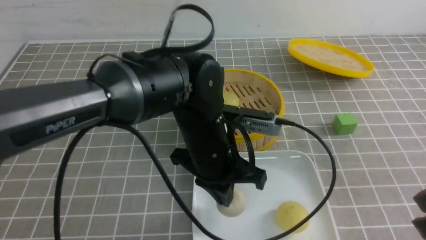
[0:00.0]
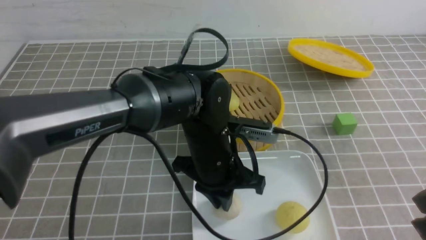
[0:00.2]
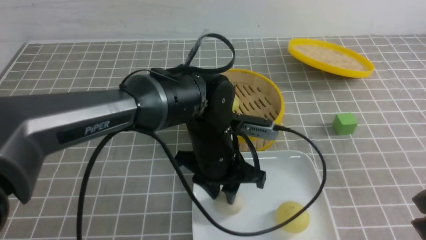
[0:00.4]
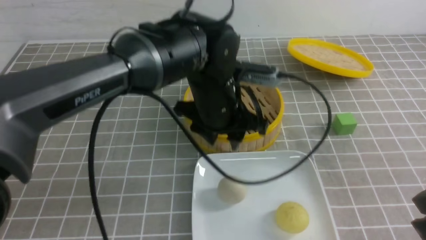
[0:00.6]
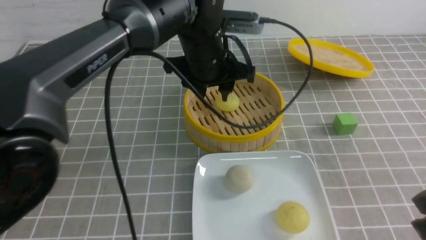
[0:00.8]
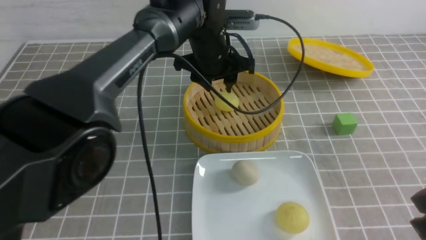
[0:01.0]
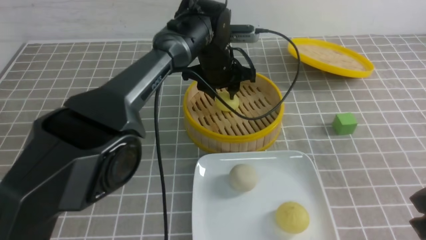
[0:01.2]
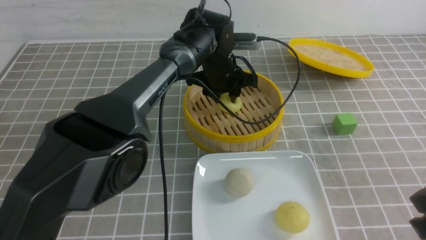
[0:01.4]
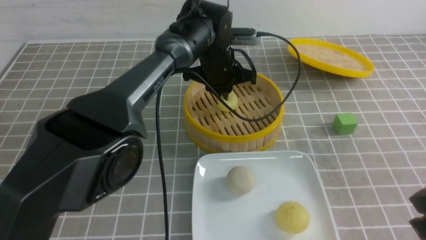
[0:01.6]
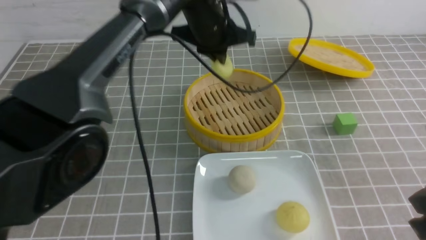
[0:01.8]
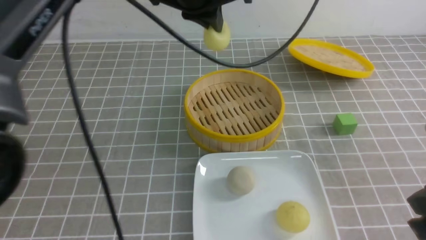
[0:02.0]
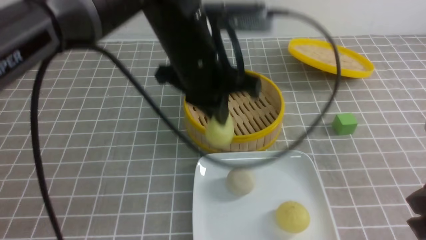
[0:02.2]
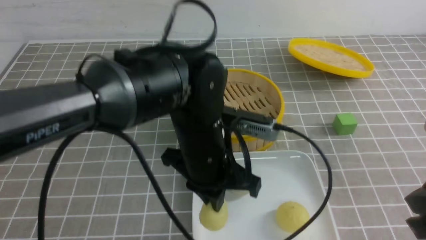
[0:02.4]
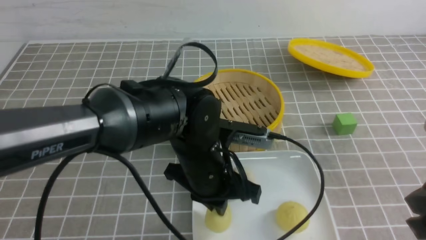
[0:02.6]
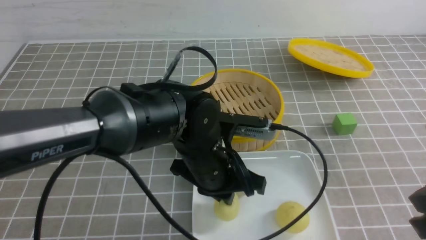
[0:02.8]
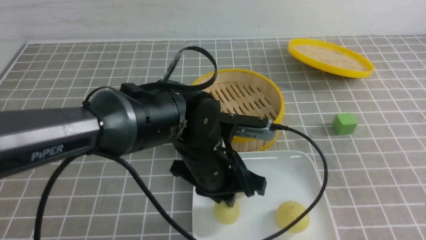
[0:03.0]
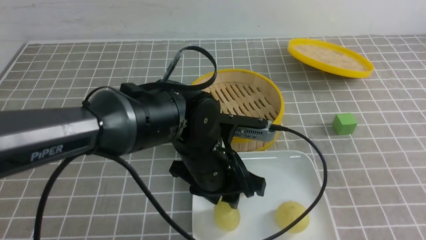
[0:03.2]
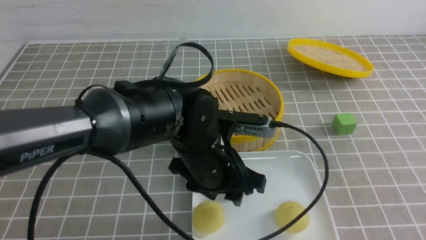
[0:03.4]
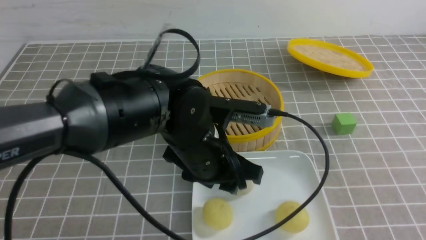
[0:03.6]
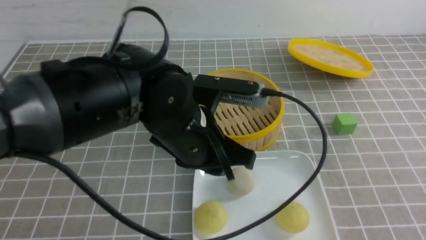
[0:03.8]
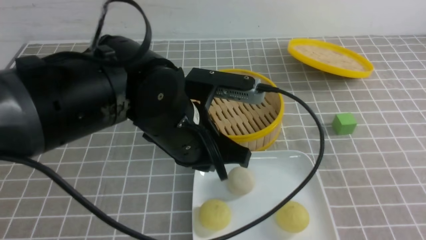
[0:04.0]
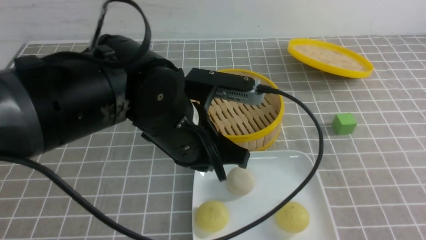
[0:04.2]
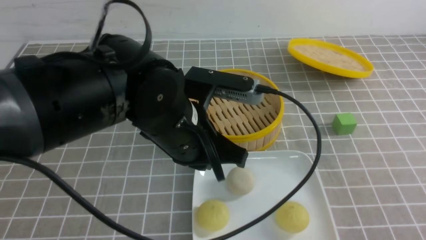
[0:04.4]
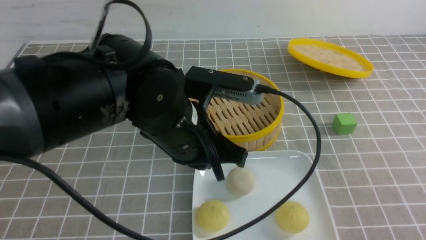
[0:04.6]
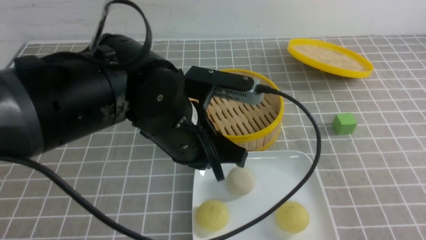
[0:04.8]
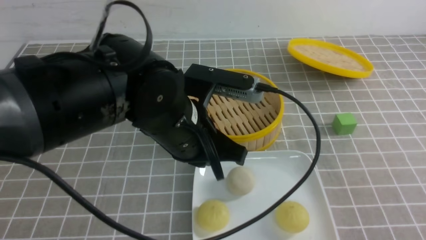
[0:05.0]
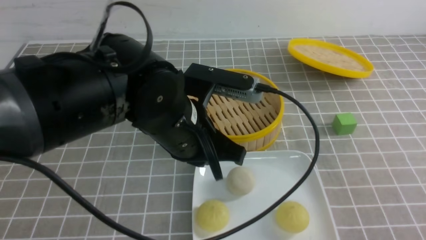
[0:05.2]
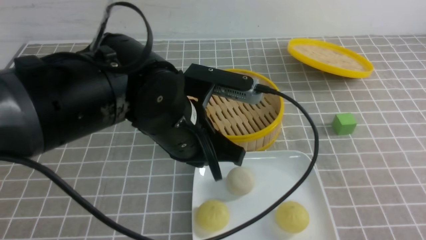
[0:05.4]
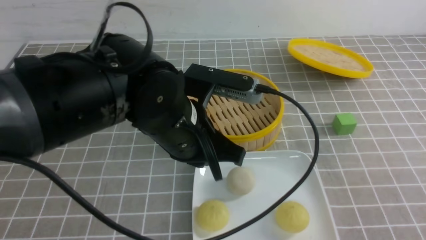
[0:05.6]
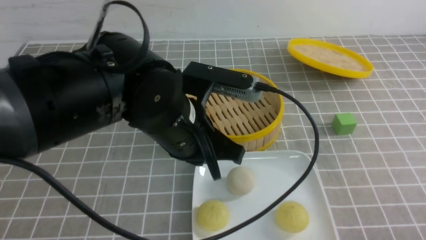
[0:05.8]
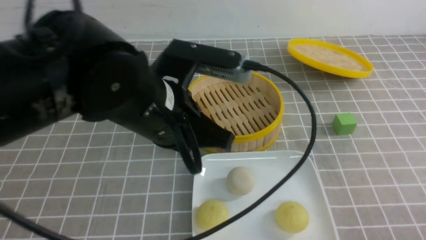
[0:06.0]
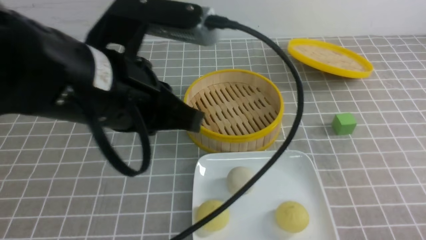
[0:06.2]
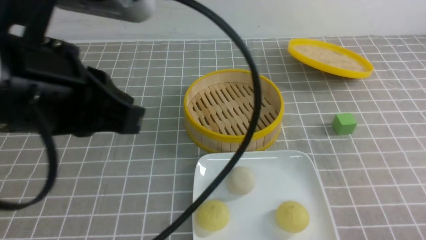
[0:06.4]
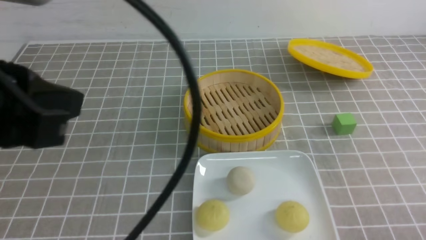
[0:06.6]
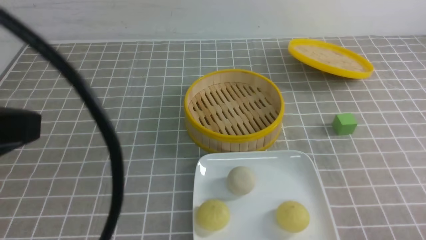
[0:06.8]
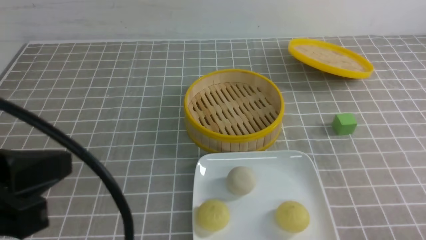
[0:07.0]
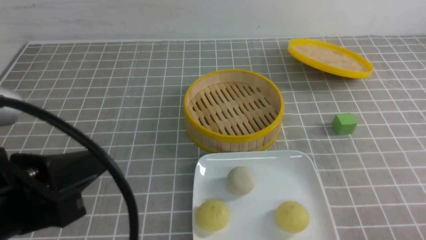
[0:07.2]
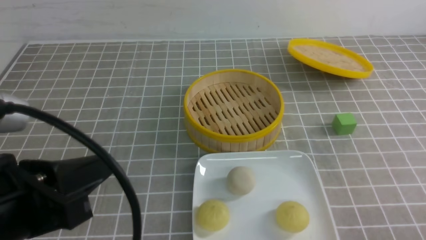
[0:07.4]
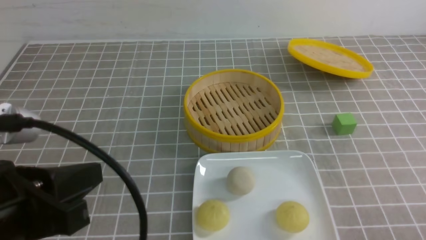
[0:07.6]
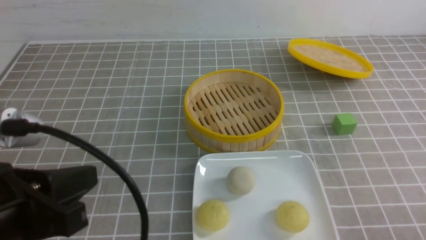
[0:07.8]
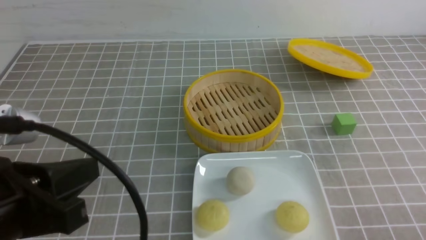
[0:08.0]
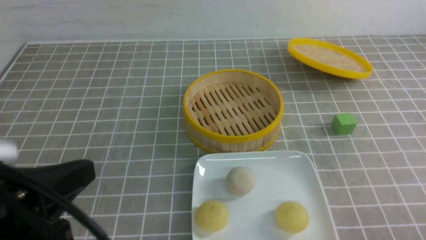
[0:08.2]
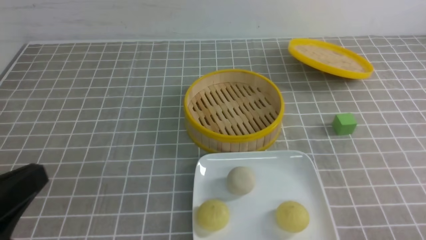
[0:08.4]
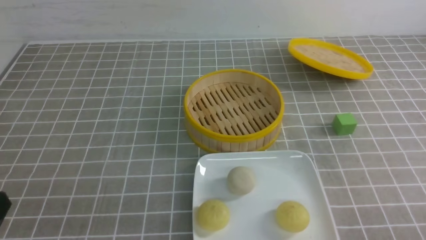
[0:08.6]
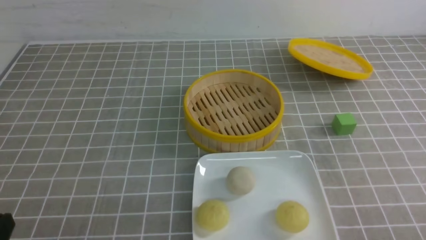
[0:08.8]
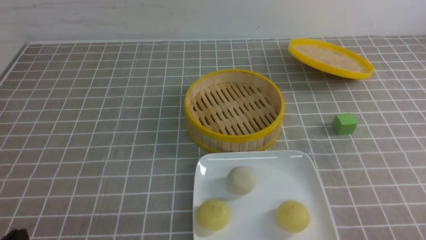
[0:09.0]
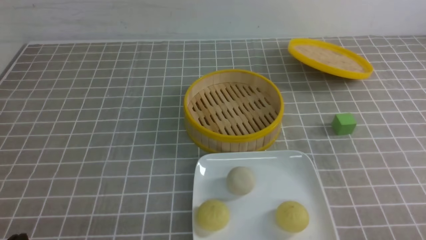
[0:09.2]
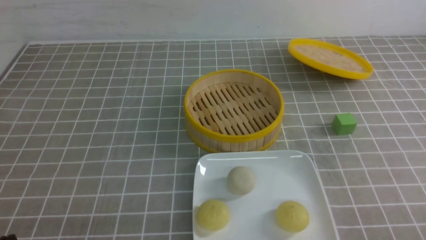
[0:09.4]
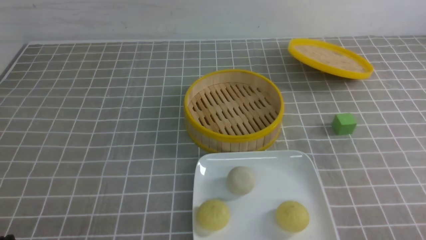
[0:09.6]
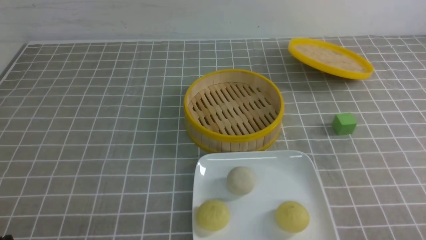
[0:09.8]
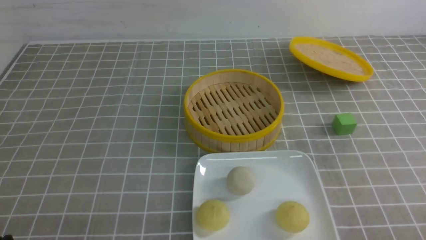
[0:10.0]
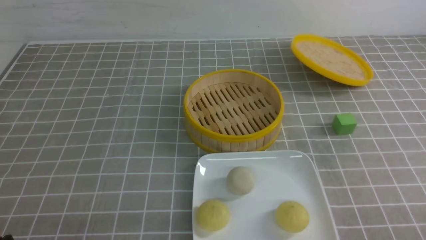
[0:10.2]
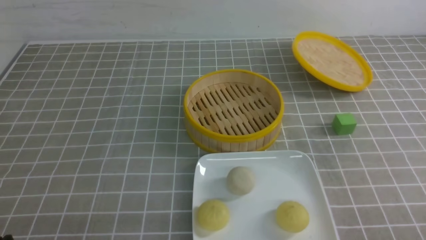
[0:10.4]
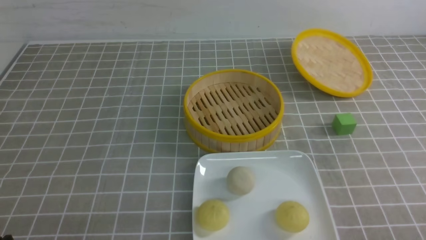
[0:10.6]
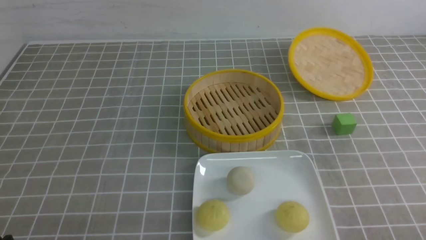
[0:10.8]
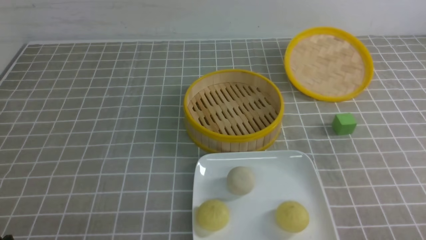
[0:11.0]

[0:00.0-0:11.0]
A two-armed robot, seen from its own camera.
Step, 0:00.6 to 0:01.6: use the left arm to grab the steamed stuffed bun that is closest to it.
Step, 0:01.8 to 0:03.2: use the left arm to put the steamed stuffed bun into the plate.
0:00.0 to 0:01.6: The left gripper goes some 20 cm forward, and opens, then closes once more.
0:01.6 to 0:03.2: The right gripper heads backward, covering roughly 5 cm. Meanwhile the left gripper heads backward, covering some 20 cm, and opens.
0:03.2 to 0:04.8: The right gripper heads downward, covering about 5 cm, while the left gripper shifts some 5 cm upward, and closes up.
0:04.8 to 0:06.2: The left gripper travels upward, to the left and backward by about 15 cm; the right gripper is displaced downward by about 10 cm.
0:06.2 to 0:07.8: The left gripper is displaced to the left, backward and downward by about 15 cm.
0:07.8 to 0:09.4: The left gripper heads downward and to the left, covering some 15 cm.
0:09.4 to 0:11.0: Both grippers stay put.
